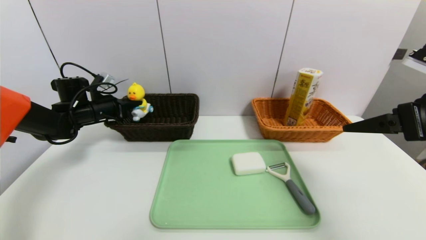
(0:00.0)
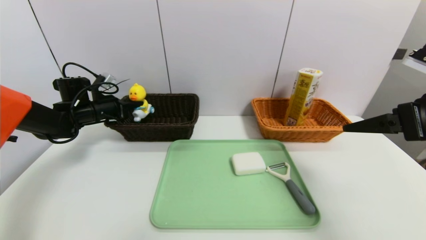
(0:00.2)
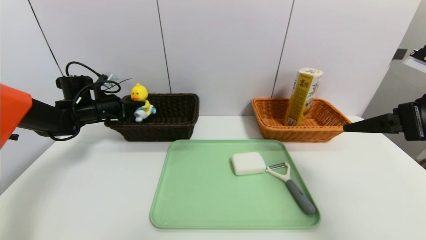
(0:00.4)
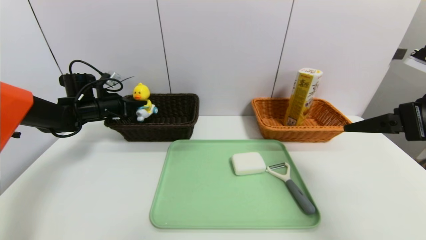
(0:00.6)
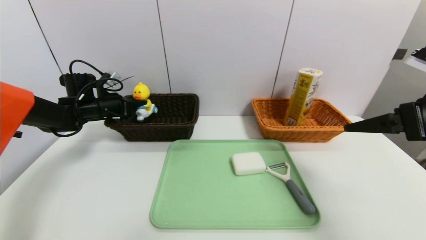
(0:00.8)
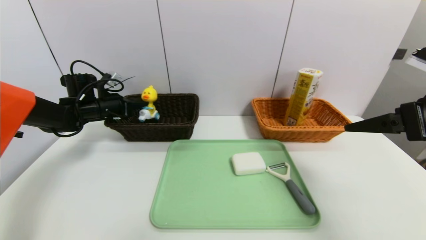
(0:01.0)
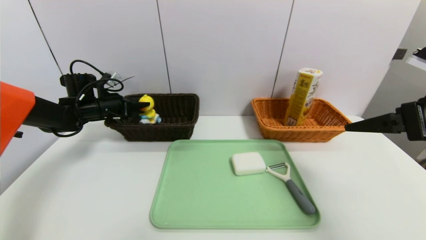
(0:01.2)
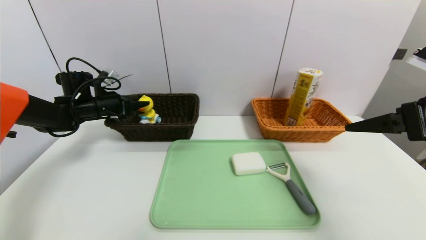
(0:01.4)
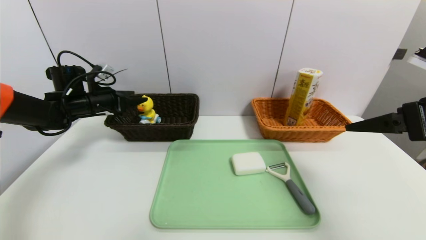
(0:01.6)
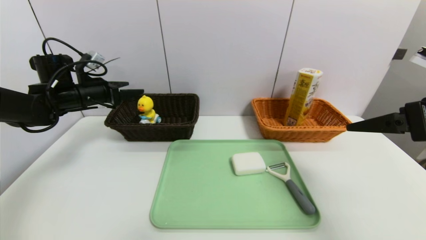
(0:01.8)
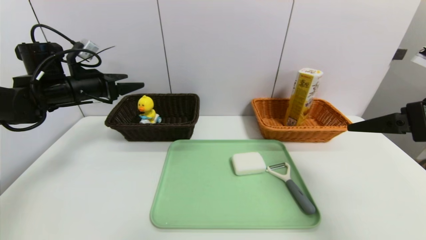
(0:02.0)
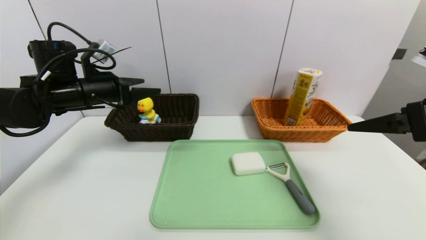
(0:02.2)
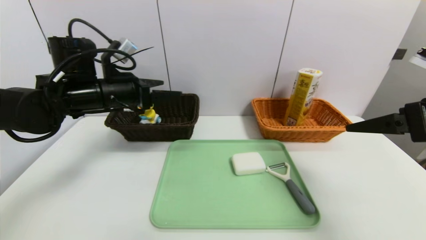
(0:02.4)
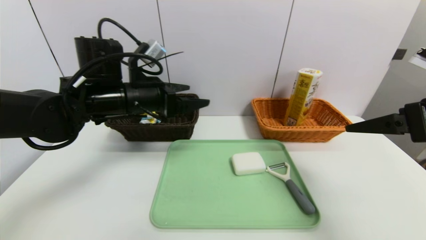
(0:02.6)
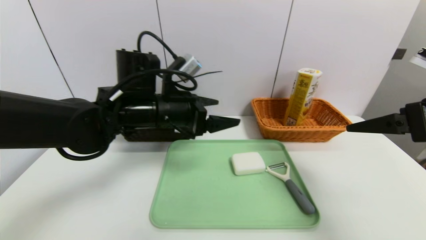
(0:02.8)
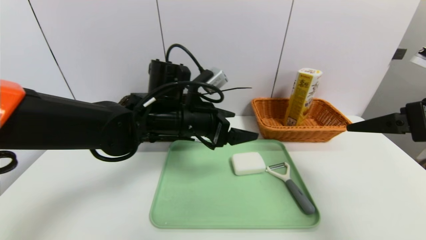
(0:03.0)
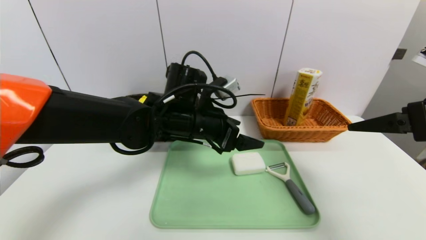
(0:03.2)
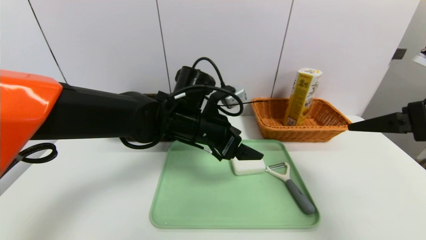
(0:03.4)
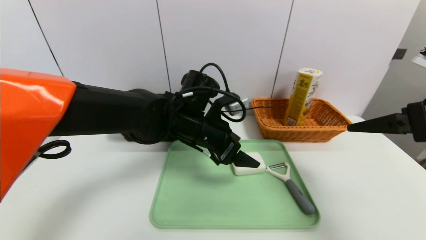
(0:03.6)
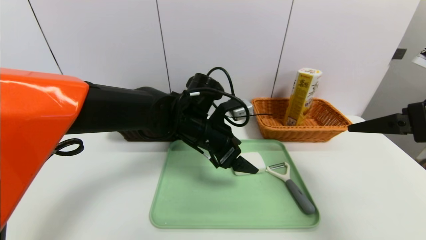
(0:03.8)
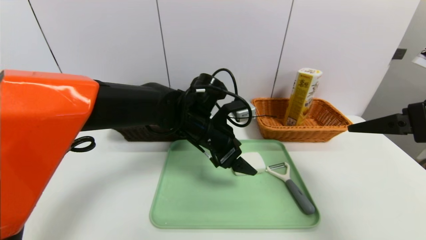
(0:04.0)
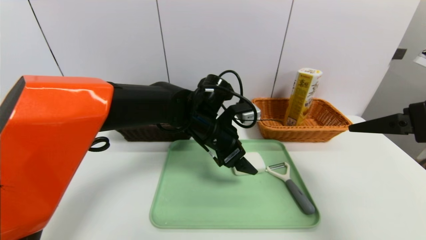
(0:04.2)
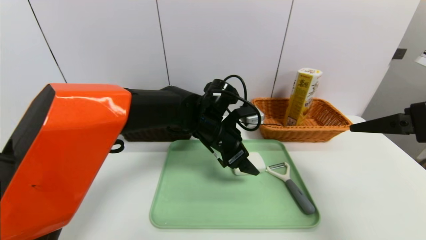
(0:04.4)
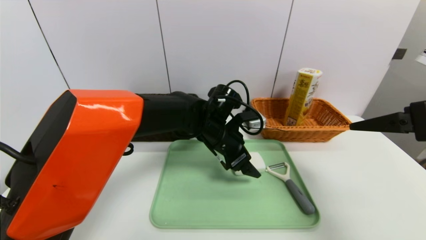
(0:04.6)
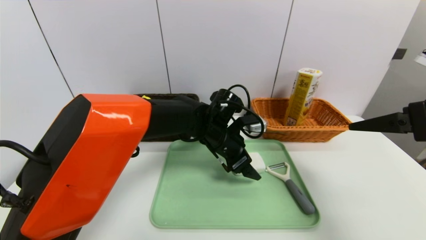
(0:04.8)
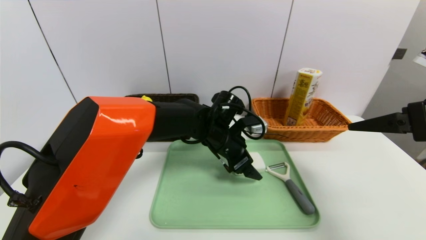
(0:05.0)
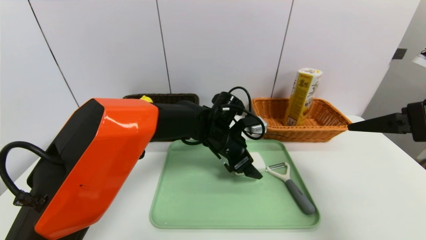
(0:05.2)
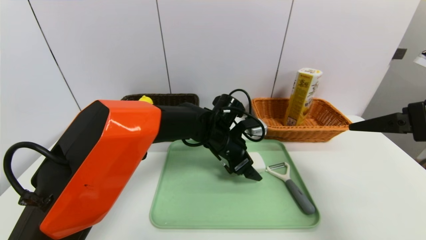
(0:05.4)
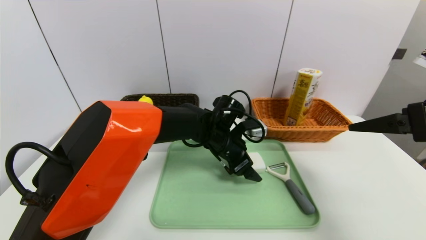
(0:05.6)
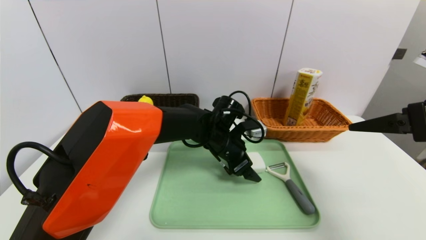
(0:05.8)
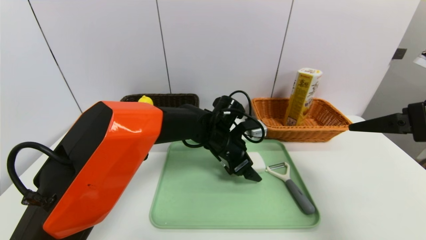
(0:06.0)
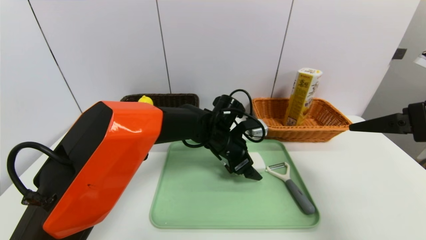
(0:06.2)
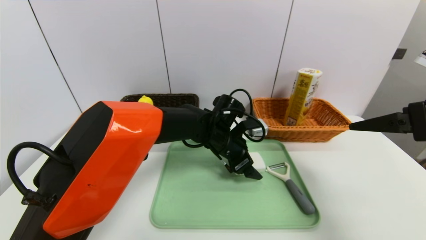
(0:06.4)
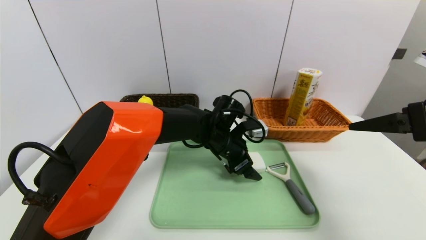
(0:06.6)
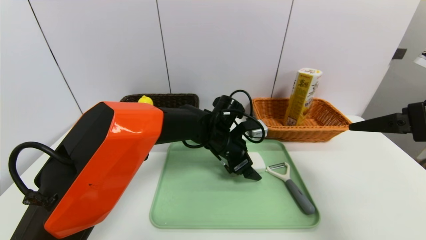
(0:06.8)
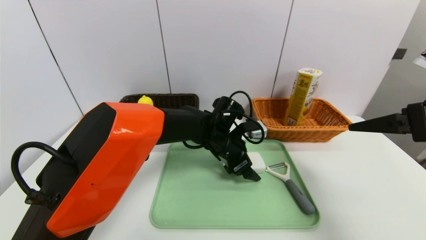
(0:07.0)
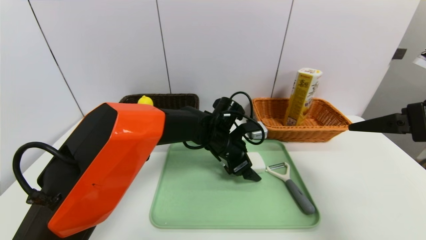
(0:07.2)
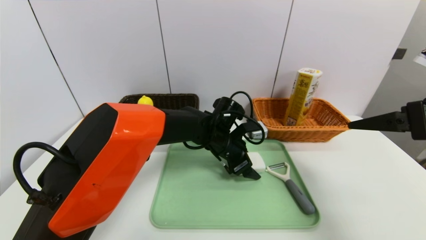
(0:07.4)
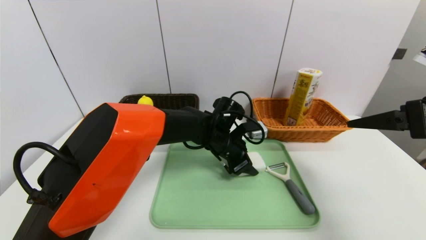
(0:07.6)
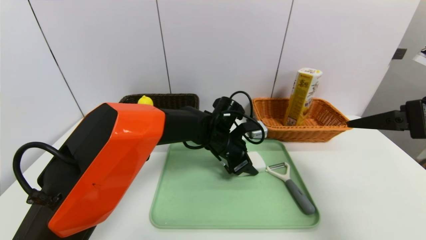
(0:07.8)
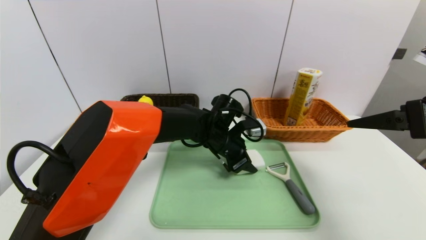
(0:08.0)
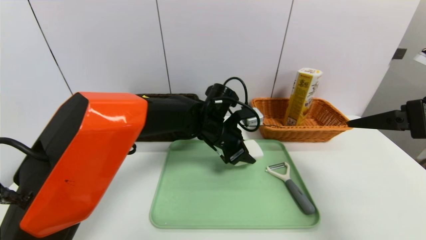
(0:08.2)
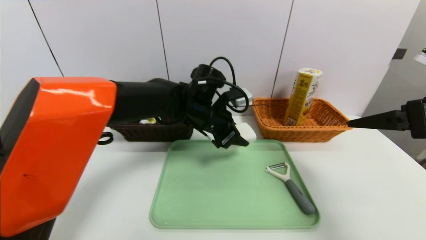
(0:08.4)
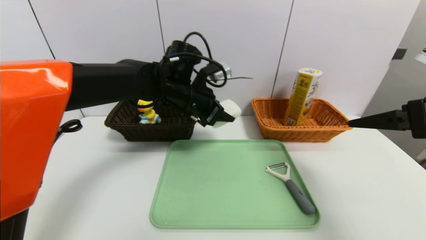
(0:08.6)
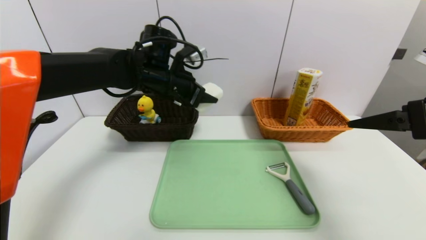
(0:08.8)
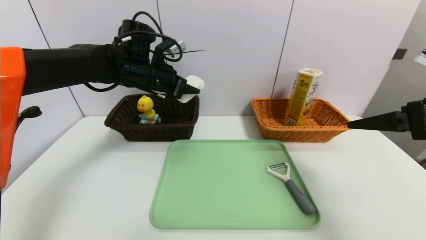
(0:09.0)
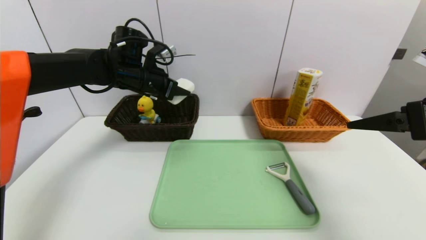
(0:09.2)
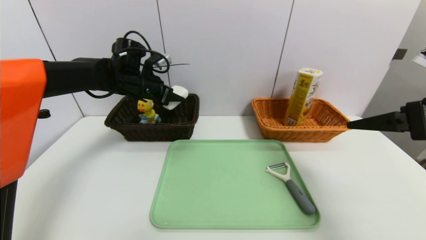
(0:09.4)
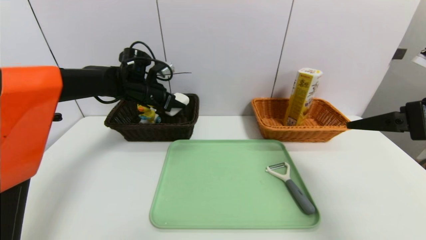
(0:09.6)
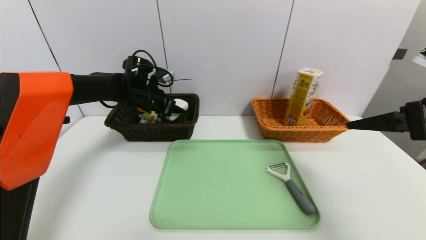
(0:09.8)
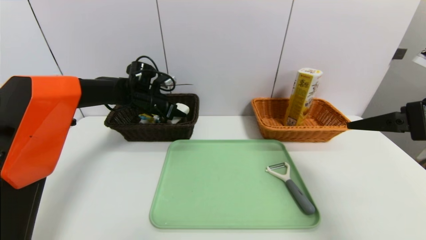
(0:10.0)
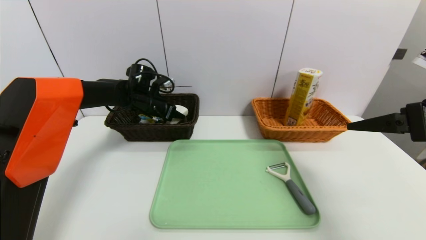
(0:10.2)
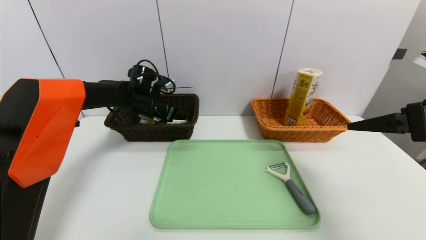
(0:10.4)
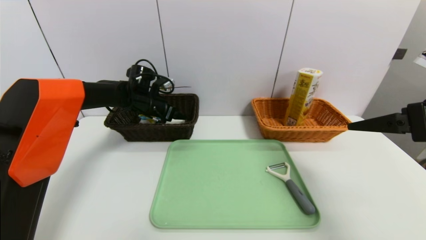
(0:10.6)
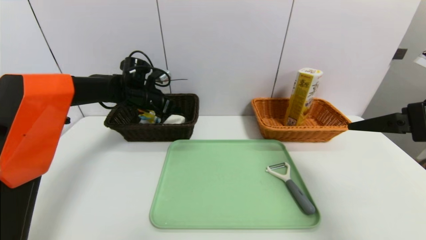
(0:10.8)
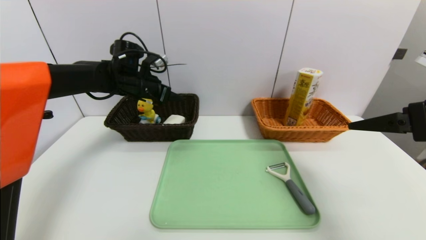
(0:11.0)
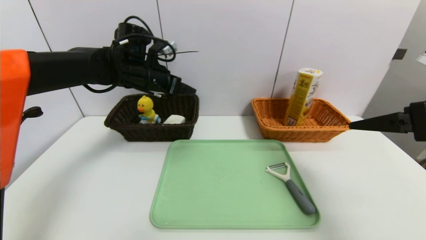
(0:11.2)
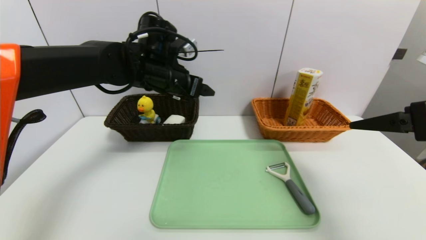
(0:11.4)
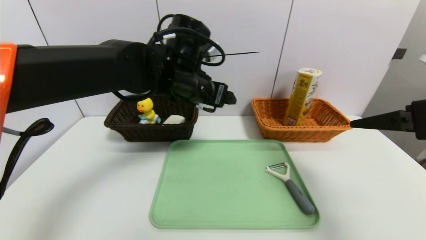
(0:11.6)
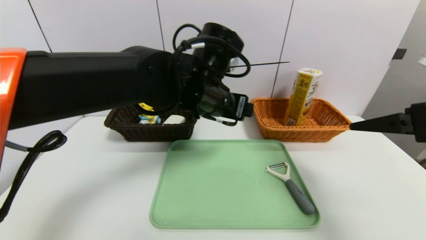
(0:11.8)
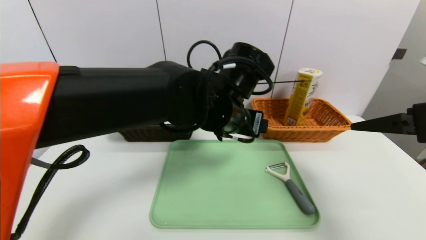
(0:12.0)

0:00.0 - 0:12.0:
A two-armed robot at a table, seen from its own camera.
Task of the whole recording: place the food in the right basket with the right gripper, and place the non food items in the left basket with the left gripper.
Step, 0:01.6 - 0:11.0: Grasp the soap and put it in the left basket.
0:00.0 - 0:01.6: The left gripper opens its fingers.
0:01.6 - 0:03.0: The left gripper is displaced to the right and backward by about 30 cm.
0:03.0 - 0:04.4: The left gripper travels to the right by some 5 cm.
0:06.0 - 0:07.6: The left gripper closes its fingers.
0:07.6 - 0:09.0: The left gripper moves to the left and upward, about 25 cm.
0:09.0 - 0:10.4: The left gripper shifts some 10 cm downward and forward.
0:10.4 - 0:12.0: The left gripper heads to the right and backward, covering about 30 cm.

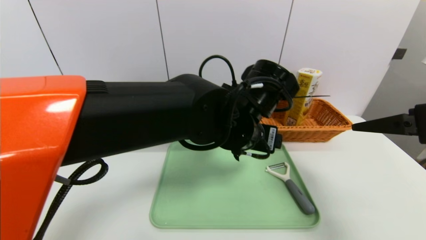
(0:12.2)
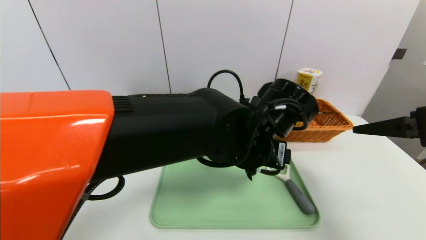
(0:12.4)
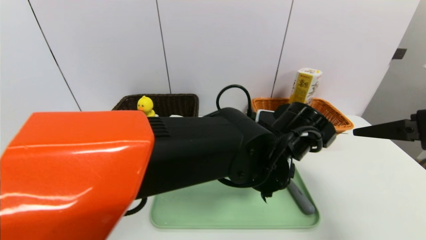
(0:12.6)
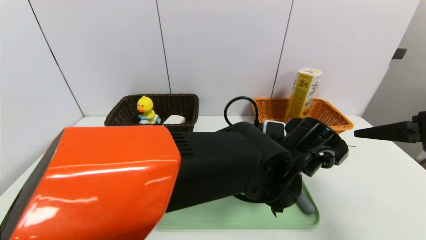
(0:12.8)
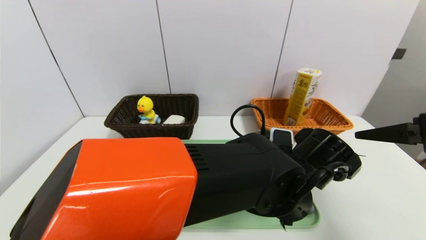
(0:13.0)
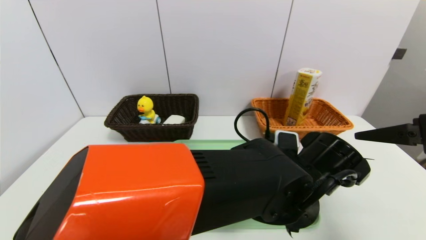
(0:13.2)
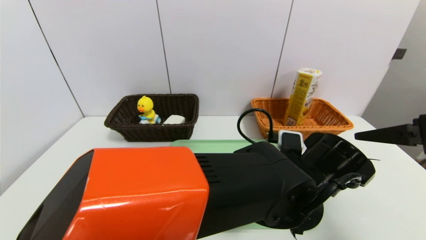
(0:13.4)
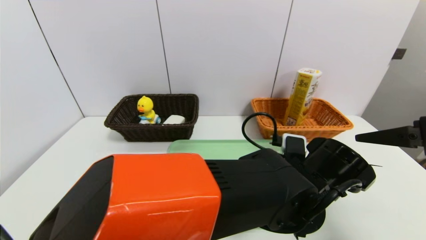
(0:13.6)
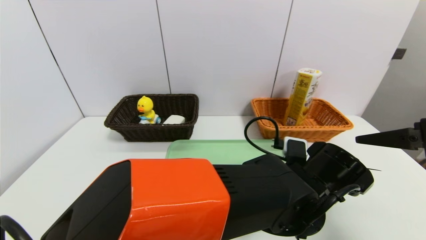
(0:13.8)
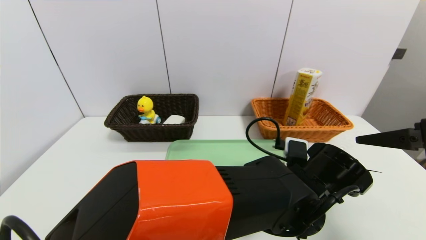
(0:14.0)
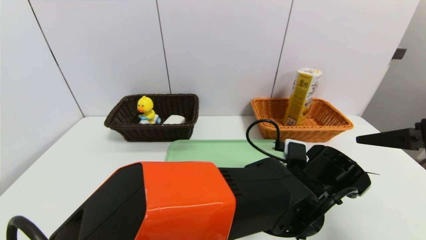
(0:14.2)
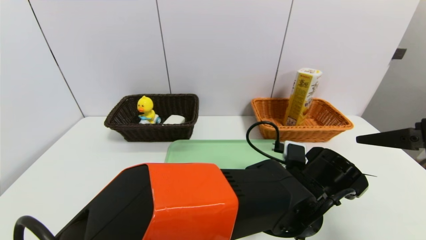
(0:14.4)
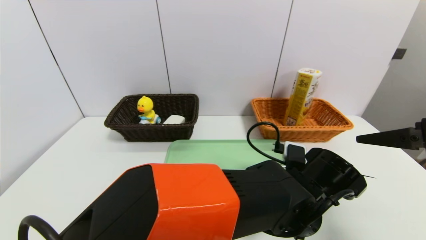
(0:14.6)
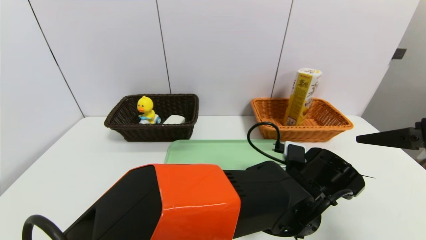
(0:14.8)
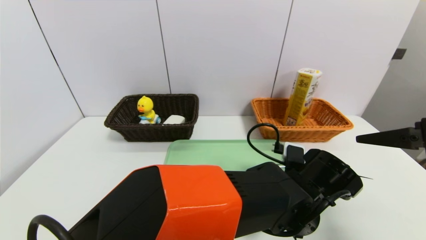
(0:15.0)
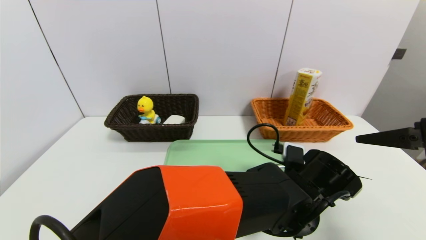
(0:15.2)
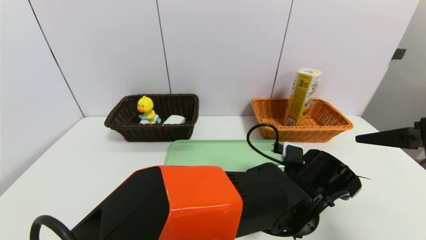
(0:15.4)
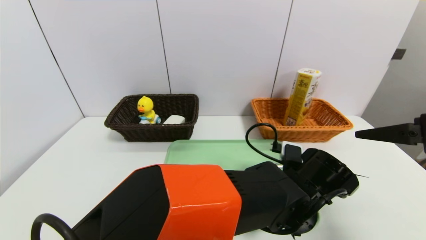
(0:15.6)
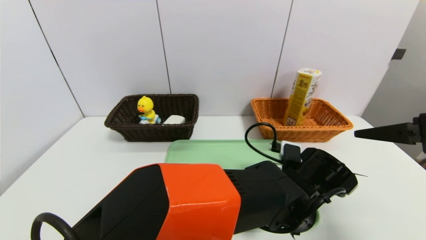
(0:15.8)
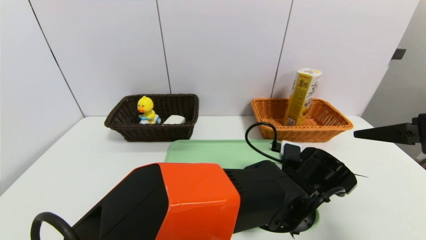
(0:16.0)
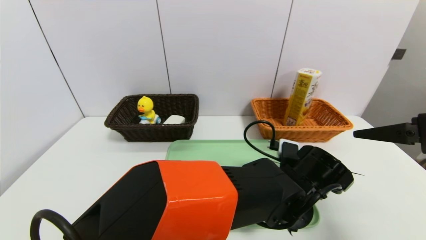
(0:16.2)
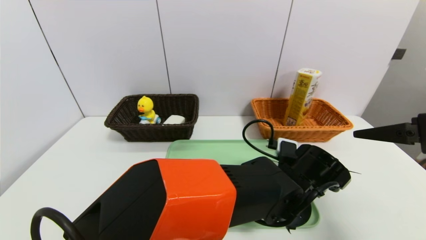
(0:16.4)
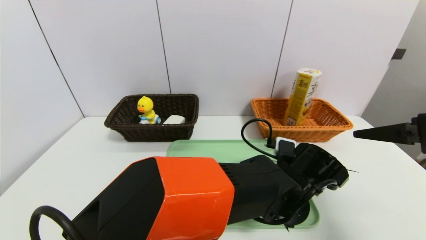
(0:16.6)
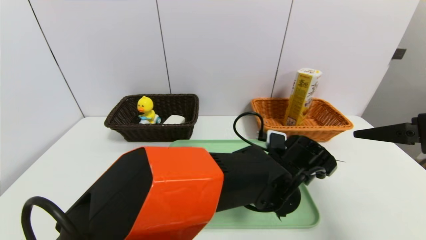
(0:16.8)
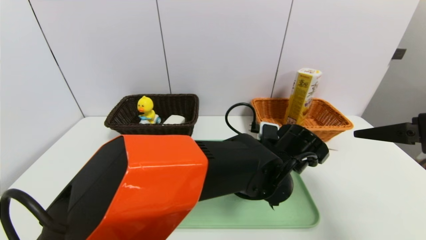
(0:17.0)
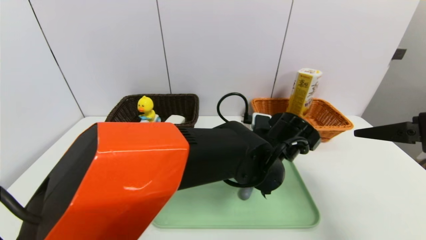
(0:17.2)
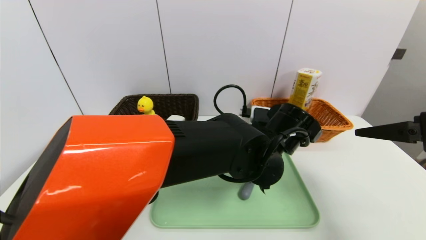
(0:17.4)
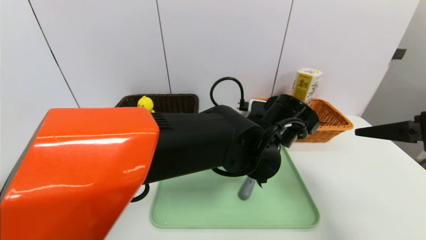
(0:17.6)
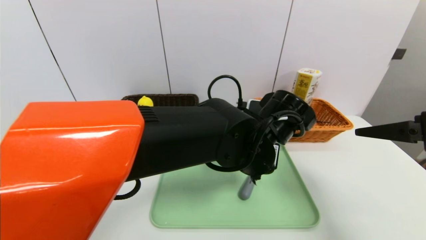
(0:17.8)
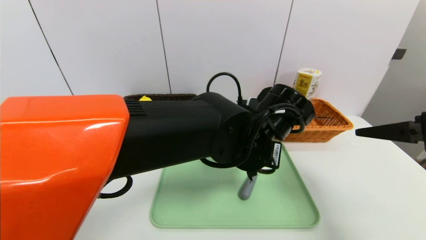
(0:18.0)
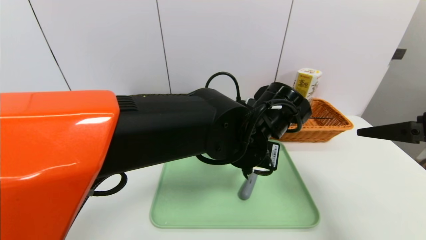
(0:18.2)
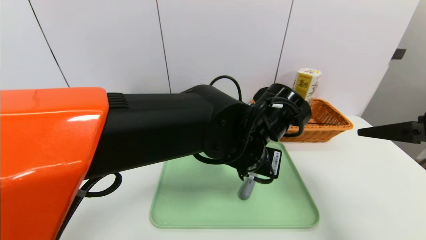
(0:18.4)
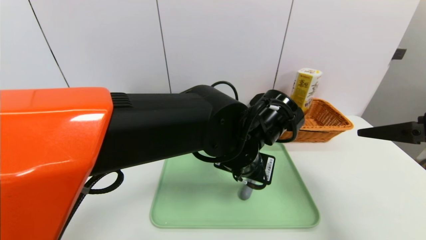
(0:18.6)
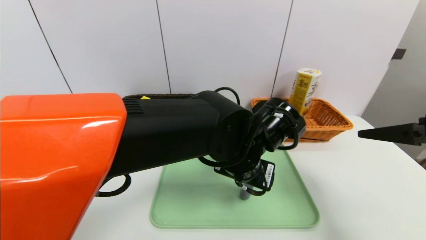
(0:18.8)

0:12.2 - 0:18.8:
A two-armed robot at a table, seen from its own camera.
Task of the whole recording: place the food in the right basket with the right gripper, and place the non food items in the left basket with the left gripper.
0:12.2 - 0:13.8: The left gripper shifts approximately 15 cm downward and to the right.
0:13.8 - 0:15.4: The grippers move only a little.
0:15.4 - 0:17.2: The left gripper is displaced to the left and upward by roughly 5 cm, and closes its fingers.
0:17.2 - 0:18.8: The left gripper ends up roughly 5 cm from where it was, and opens up.
